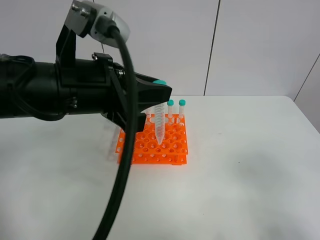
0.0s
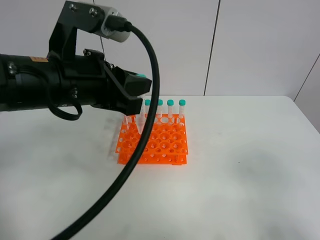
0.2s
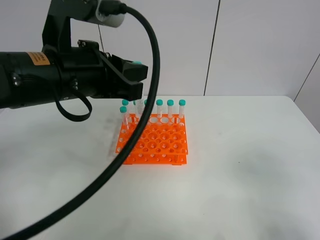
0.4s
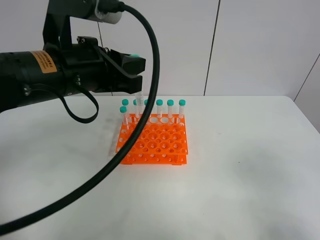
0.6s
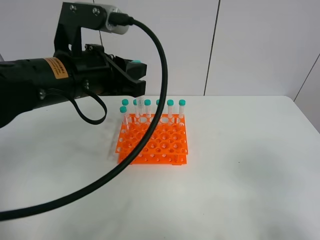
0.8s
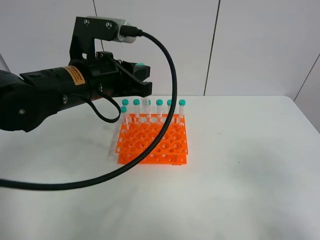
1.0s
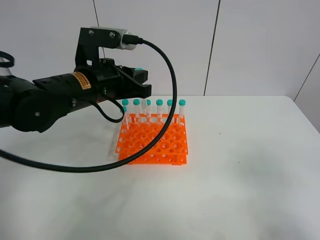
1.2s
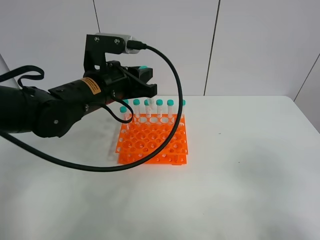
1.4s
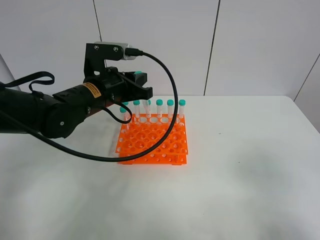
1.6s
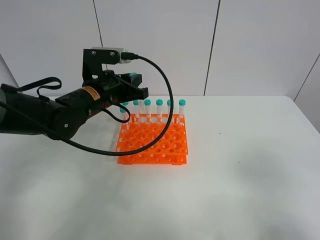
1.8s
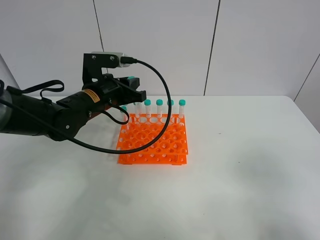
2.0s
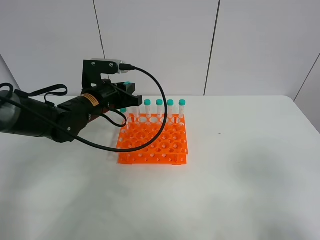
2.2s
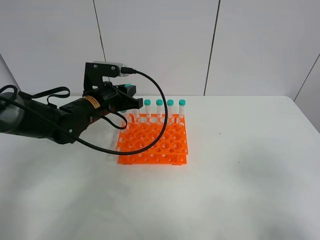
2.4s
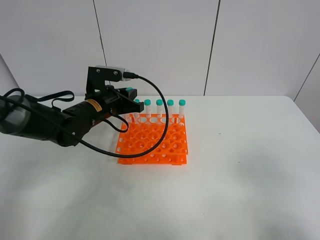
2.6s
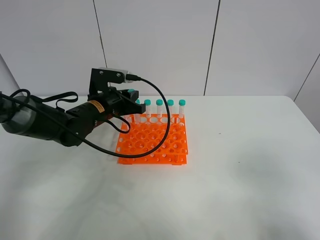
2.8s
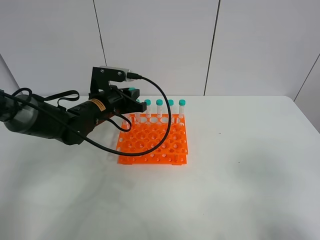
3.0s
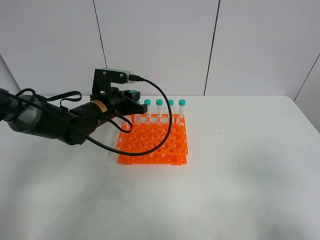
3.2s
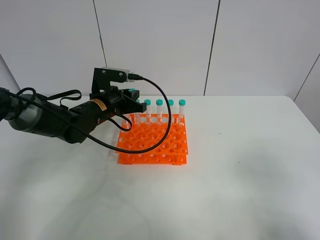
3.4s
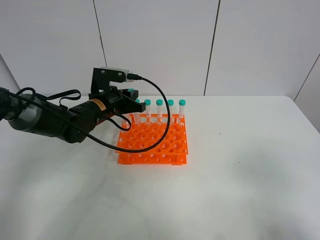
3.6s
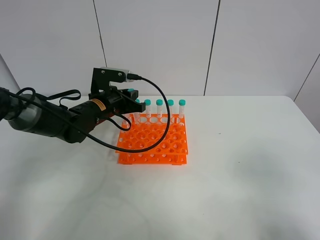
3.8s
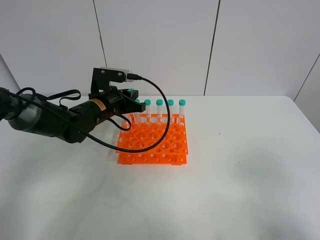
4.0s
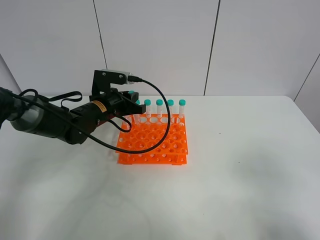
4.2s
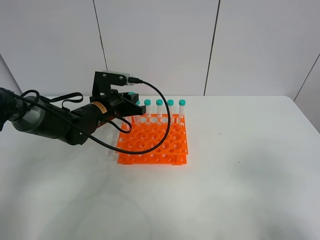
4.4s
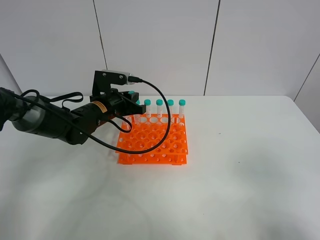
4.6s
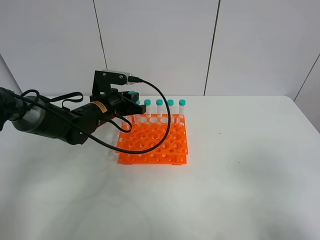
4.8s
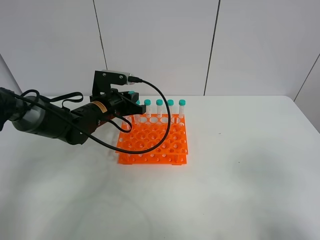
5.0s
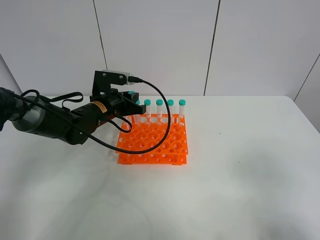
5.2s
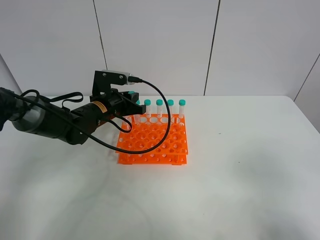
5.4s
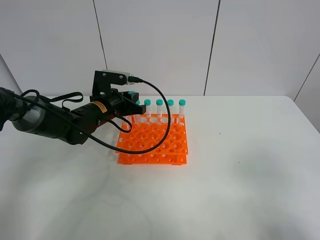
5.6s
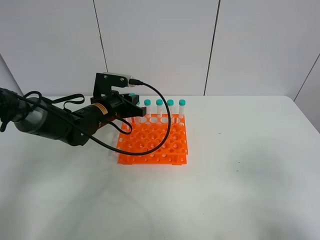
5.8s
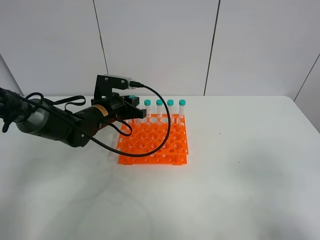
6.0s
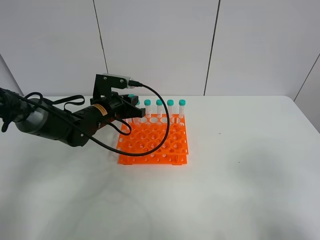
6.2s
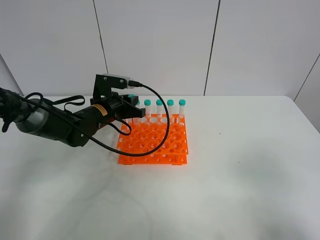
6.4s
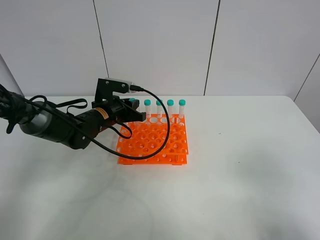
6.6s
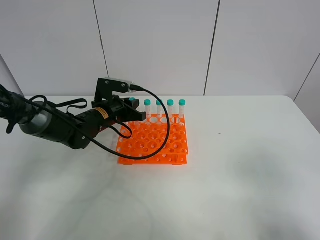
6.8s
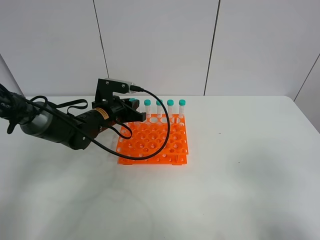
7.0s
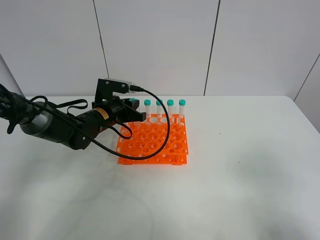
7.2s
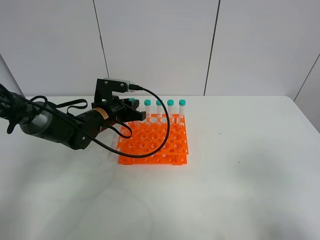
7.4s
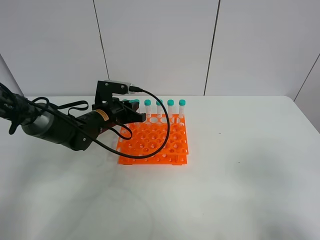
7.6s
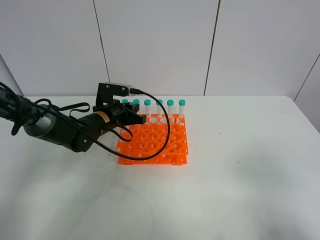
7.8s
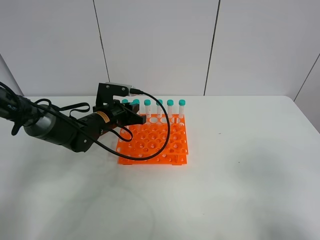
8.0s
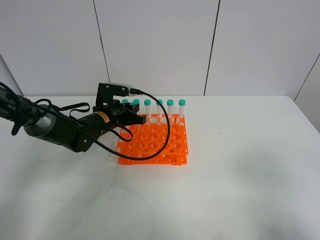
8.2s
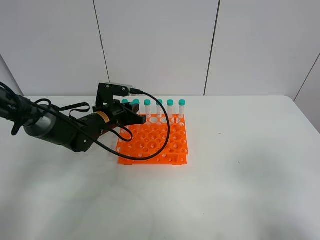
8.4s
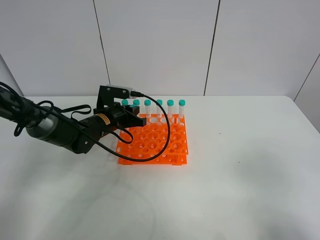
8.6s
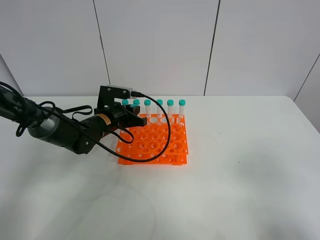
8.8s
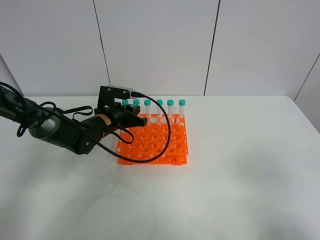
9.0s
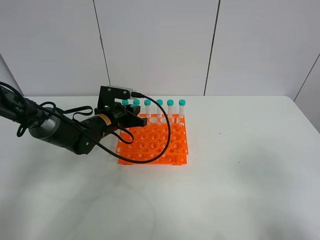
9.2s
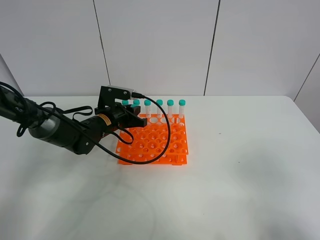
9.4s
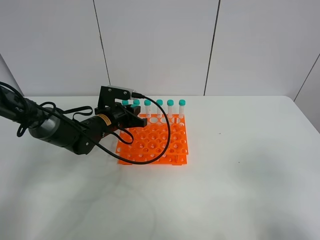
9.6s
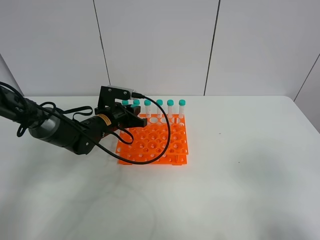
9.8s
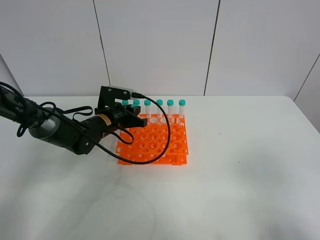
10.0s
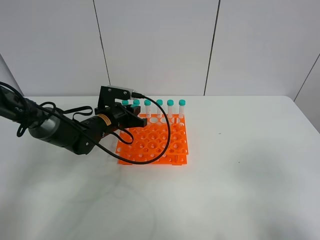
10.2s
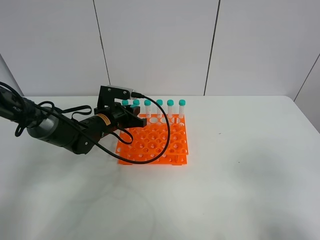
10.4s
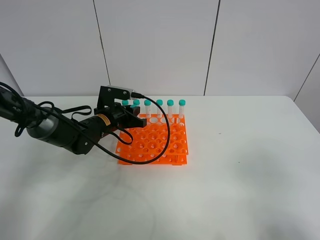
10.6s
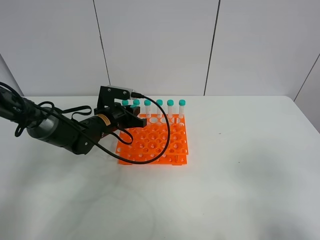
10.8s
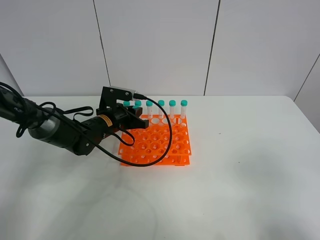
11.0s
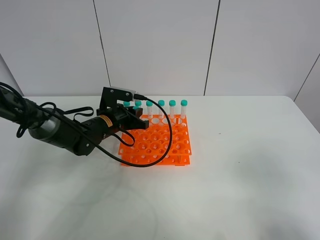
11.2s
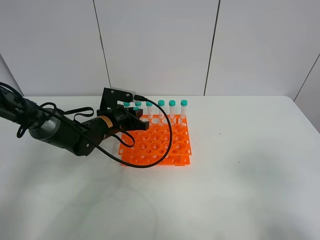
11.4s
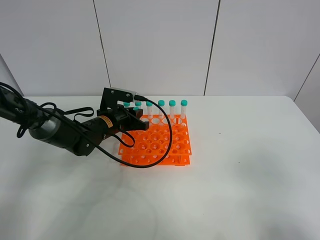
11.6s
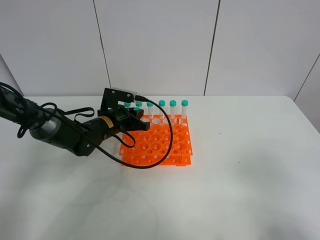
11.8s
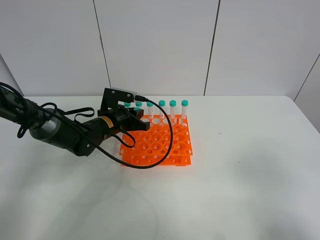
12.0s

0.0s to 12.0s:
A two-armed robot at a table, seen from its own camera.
Task of the whole recording: Put the test tube on the table back onto the test tube rack.
0.0s to 1.6s: The left gripper goes roughly 15 cm forward and downward.
1.6s to 3.0s: The left gripper goes roughly 5 cm downward.
3.0s to 4.4s: The grippers make only small movements.
4.4s to 6.0s: Both grippers stay put.
6.0s to 9.0s: The grippers stay close to where they were, moving slightly.
9.0s to 12.0s: Neither gripper changes place.

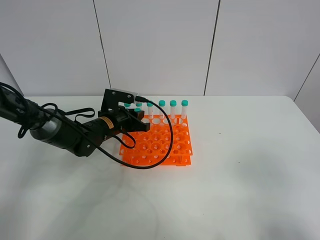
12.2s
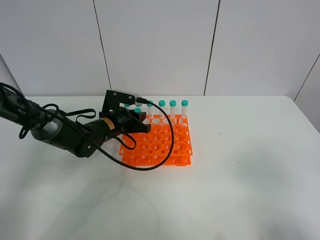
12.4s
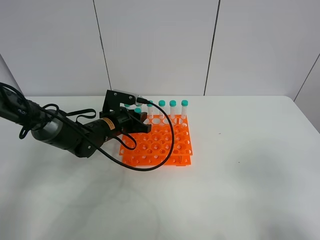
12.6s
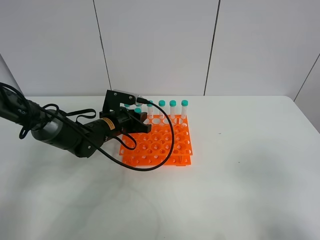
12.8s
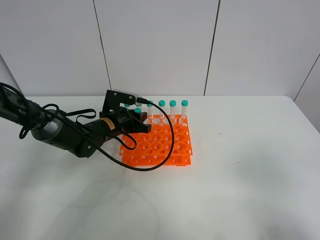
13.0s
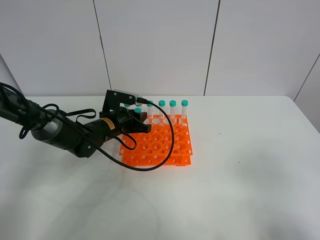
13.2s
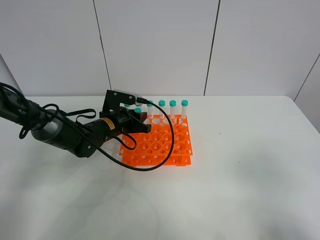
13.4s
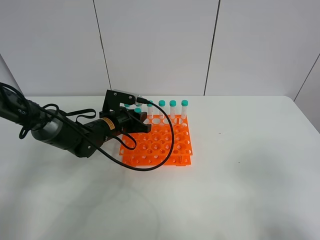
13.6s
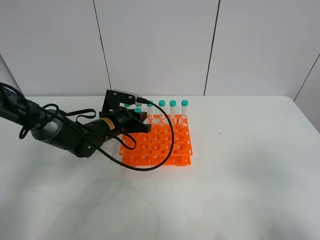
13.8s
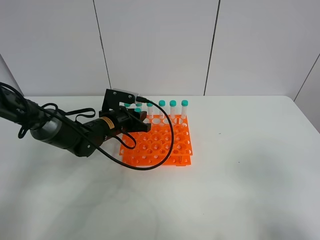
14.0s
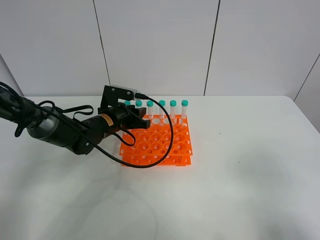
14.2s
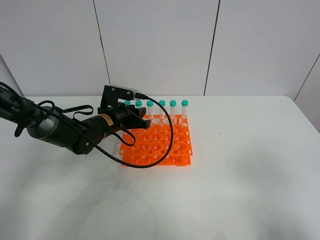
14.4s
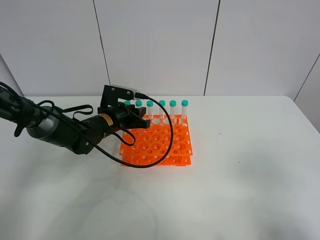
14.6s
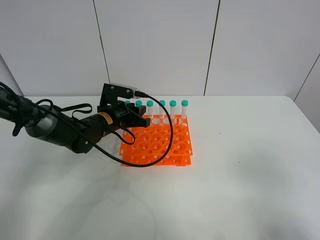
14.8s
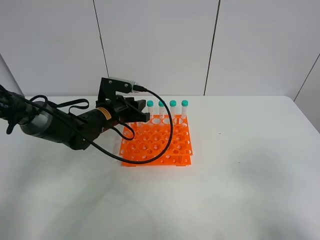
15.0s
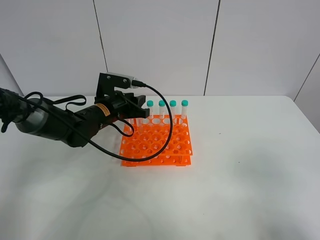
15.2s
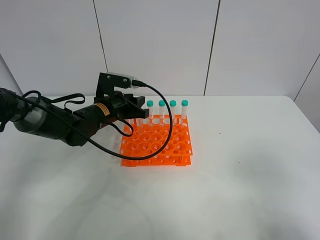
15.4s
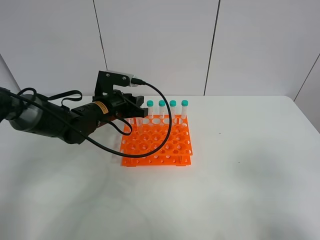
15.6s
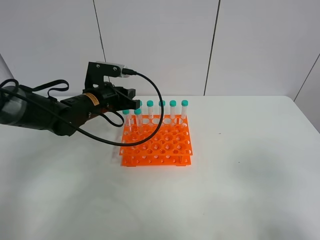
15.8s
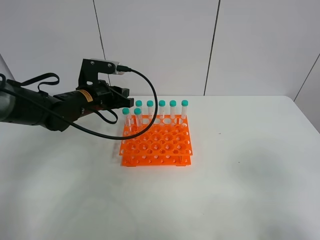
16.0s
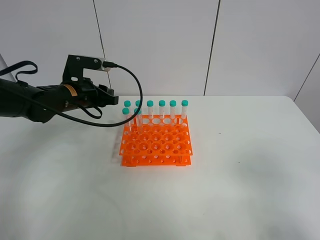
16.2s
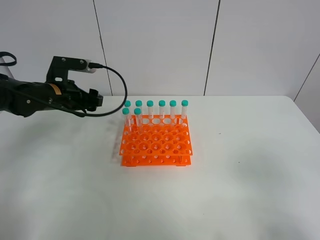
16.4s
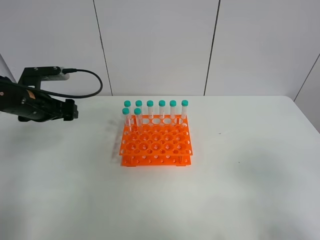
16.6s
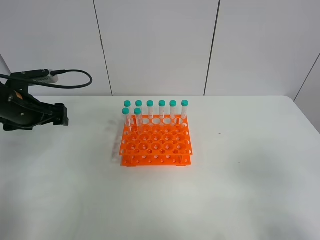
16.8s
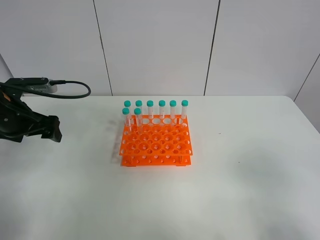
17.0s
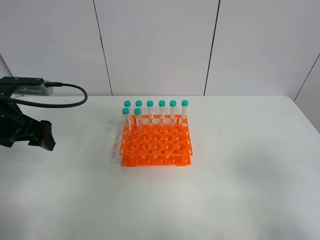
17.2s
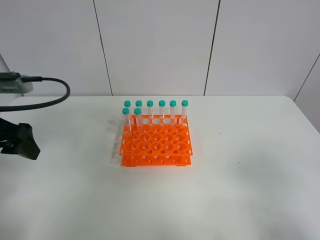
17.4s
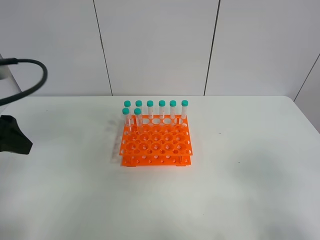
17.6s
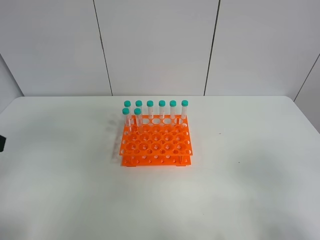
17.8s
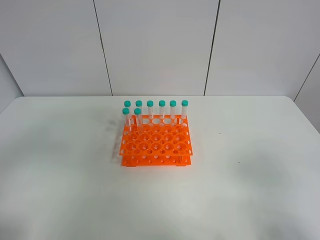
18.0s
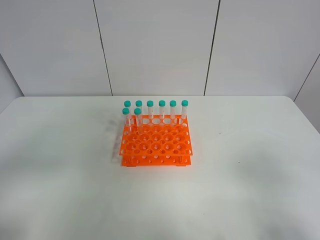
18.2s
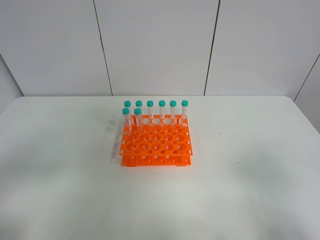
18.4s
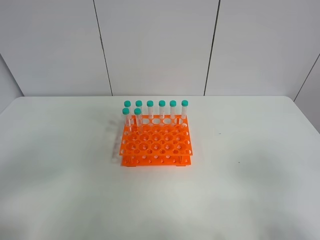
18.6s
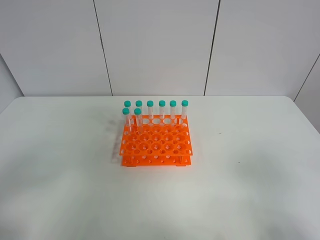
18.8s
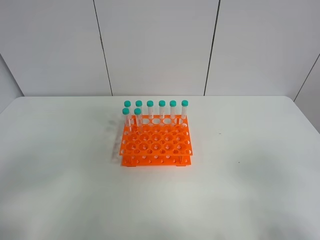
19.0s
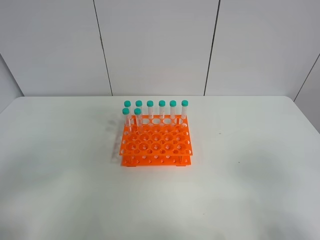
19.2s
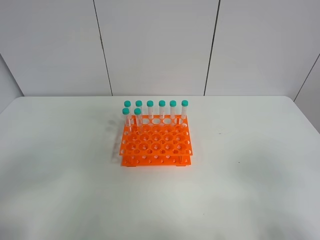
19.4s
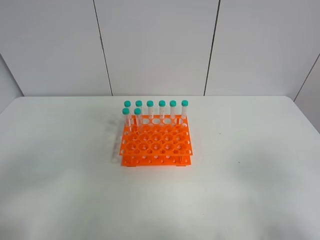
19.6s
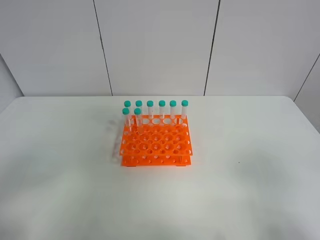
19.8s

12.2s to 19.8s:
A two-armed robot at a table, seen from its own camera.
Task of the whole recording: Put the test tube on the table back onto the test tube rack.
Step, 12.2s to 16.0s: Place the test tube on the test tube rack with the left gripper.
12.2s to 13.8s: The two grippers keep their place.
13.8s to 15.2s: The grippers make only small movements.
15.2s to 16.8s: The left gripper shifts about 15 cm to the left, and opens up.
16.8s to 18.2s: The left gripper travels backward by about 30 cm.

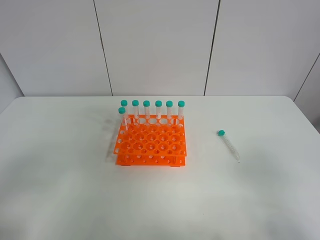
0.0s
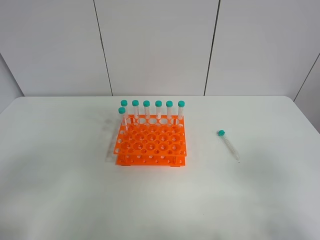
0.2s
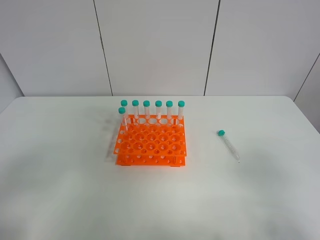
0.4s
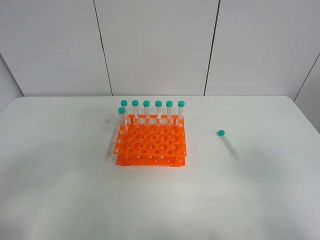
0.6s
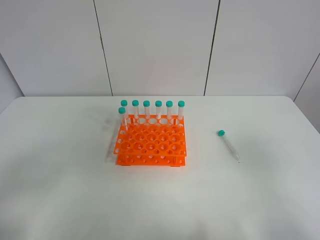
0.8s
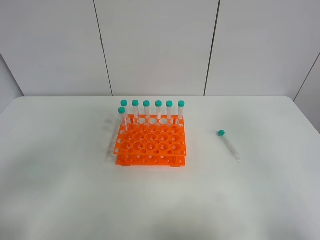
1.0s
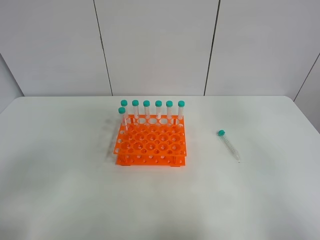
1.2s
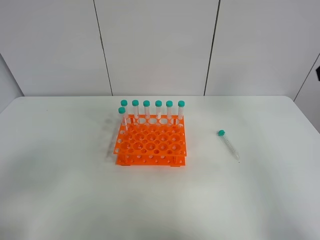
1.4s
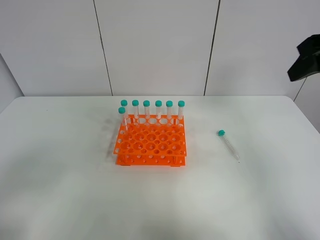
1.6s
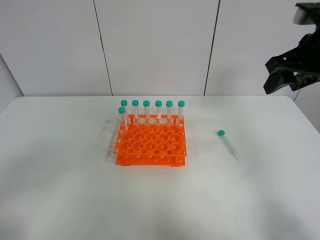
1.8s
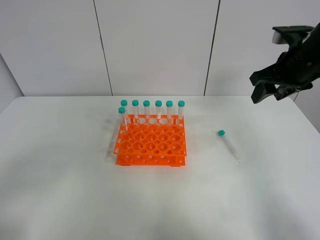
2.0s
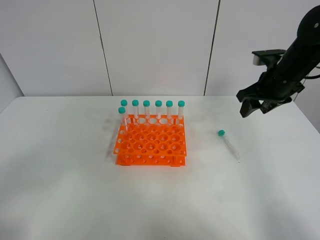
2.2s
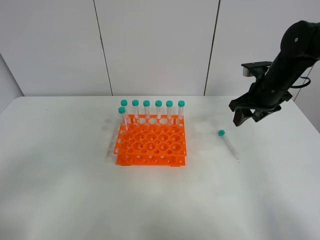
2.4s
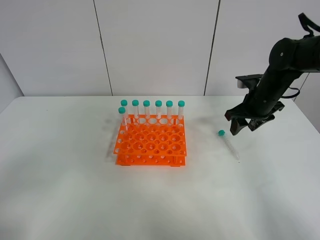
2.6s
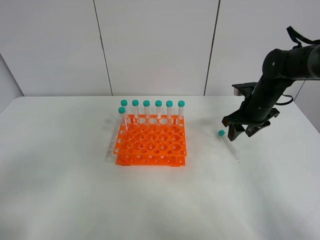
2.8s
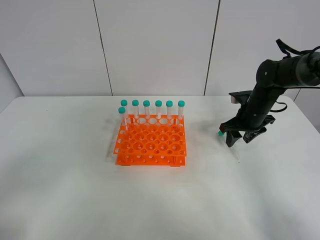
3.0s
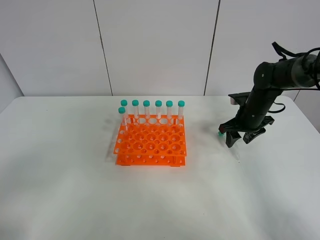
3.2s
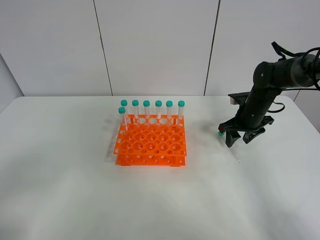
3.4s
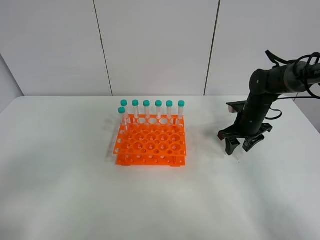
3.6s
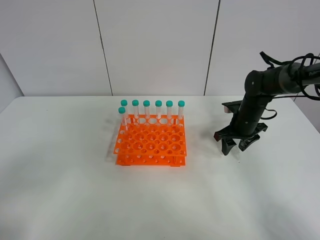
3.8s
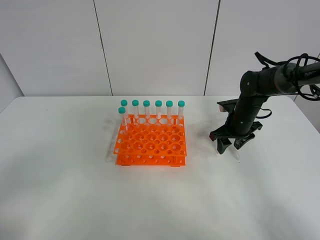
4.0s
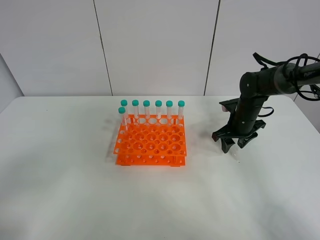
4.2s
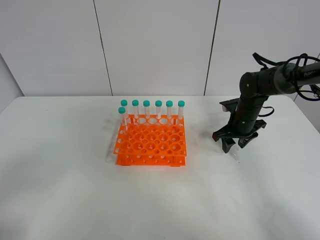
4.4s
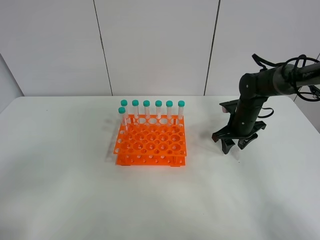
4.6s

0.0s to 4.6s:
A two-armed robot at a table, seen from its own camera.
Task of the whole recording: Put the test tube on the table back onto the test tube rack.
0.0s to 1.6s: The right gripper goes some 30 cm forward and upward.
1.6s to 3.0s: The right gripper is displaced downward and forward by approximately 30 cm.
3.0s to 4.6s: The grippers make only small movements.
